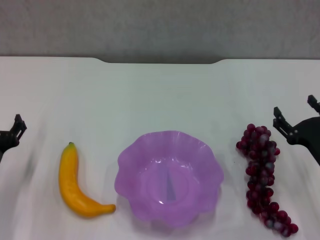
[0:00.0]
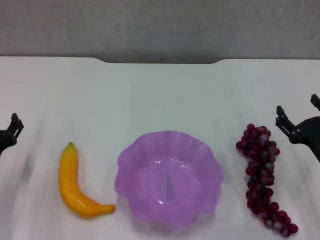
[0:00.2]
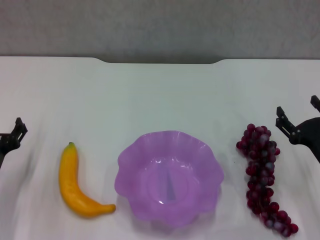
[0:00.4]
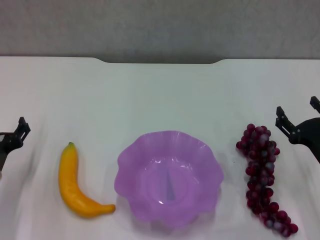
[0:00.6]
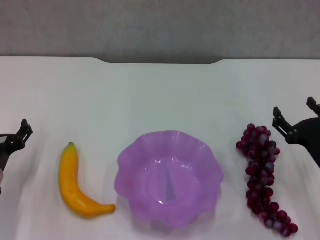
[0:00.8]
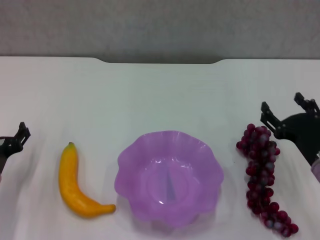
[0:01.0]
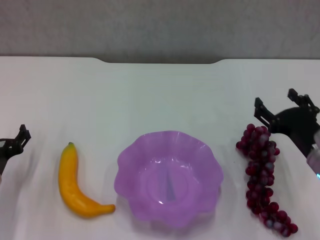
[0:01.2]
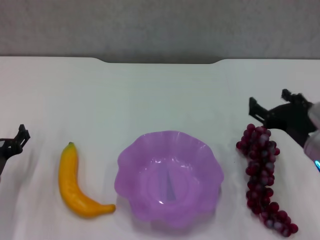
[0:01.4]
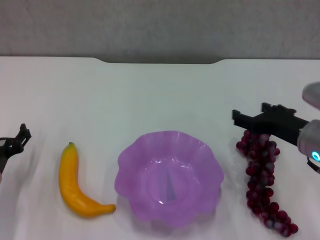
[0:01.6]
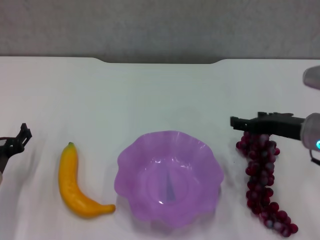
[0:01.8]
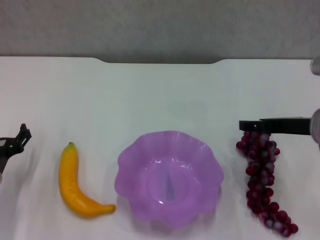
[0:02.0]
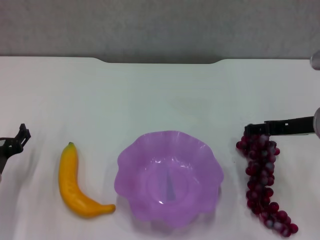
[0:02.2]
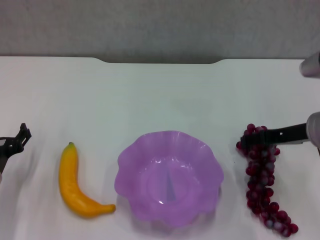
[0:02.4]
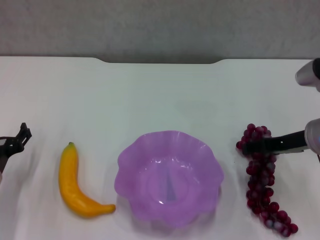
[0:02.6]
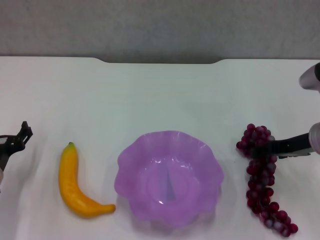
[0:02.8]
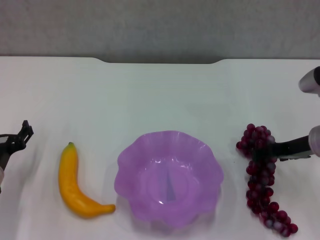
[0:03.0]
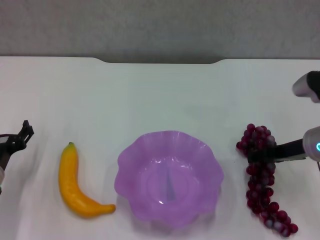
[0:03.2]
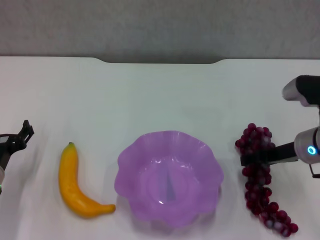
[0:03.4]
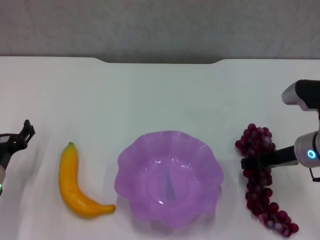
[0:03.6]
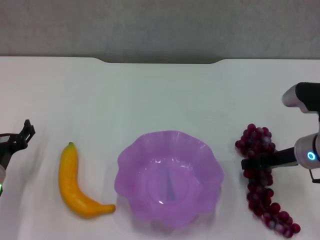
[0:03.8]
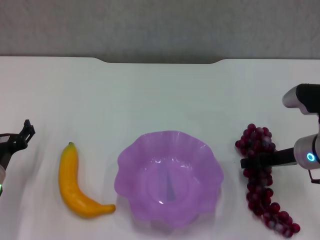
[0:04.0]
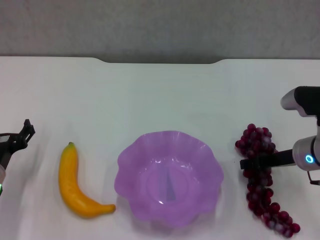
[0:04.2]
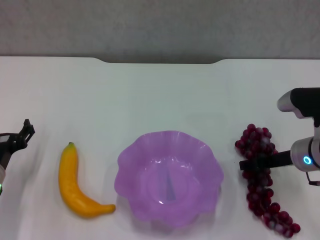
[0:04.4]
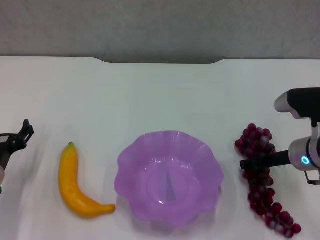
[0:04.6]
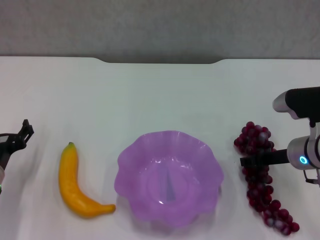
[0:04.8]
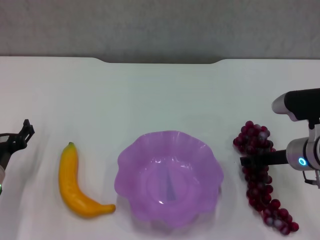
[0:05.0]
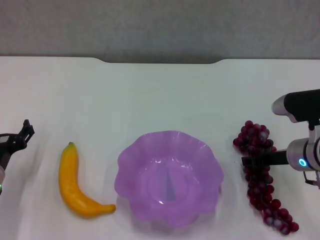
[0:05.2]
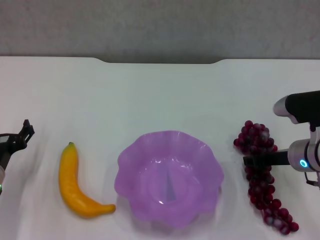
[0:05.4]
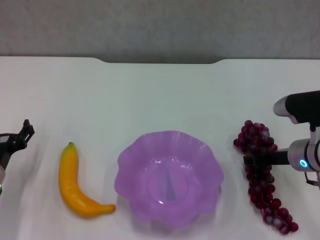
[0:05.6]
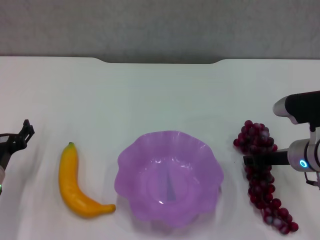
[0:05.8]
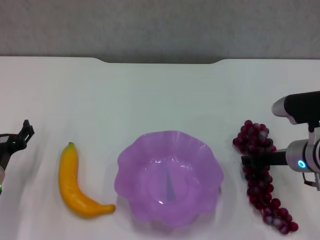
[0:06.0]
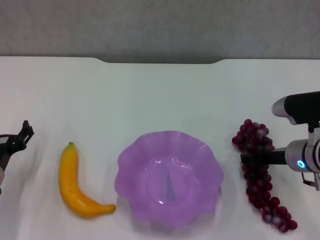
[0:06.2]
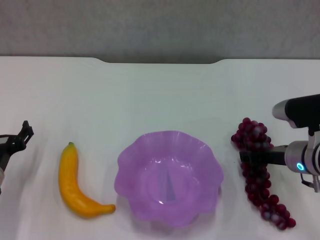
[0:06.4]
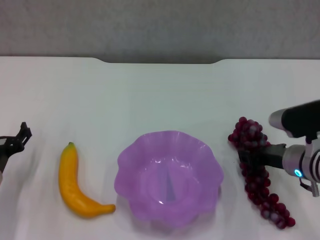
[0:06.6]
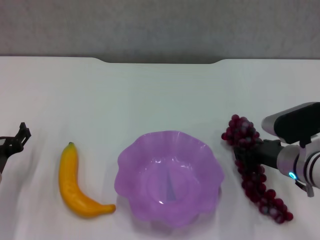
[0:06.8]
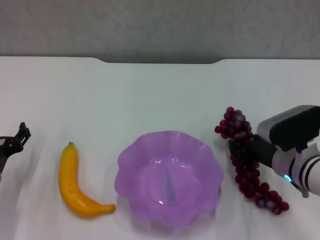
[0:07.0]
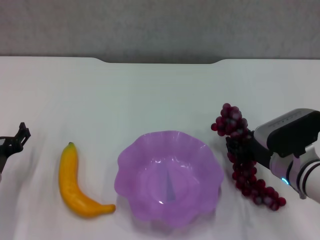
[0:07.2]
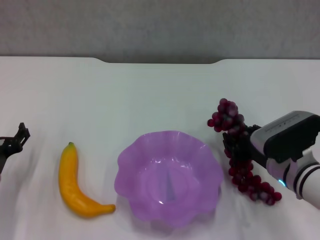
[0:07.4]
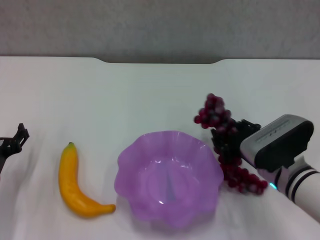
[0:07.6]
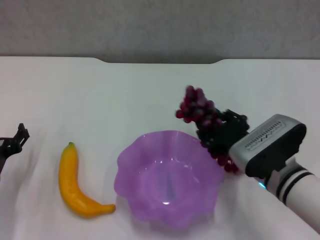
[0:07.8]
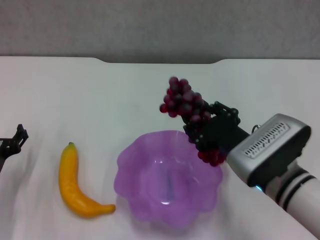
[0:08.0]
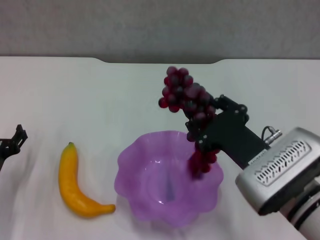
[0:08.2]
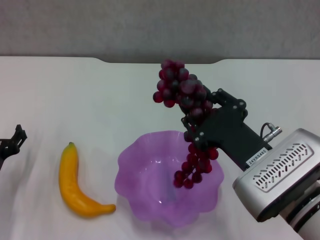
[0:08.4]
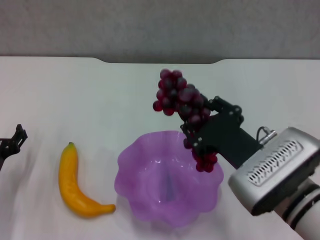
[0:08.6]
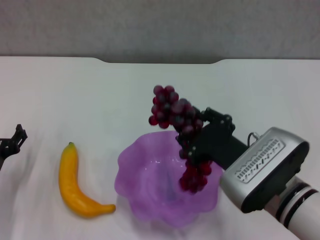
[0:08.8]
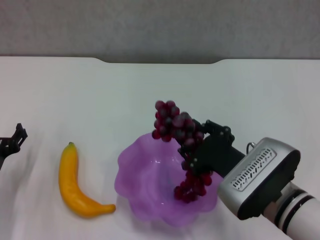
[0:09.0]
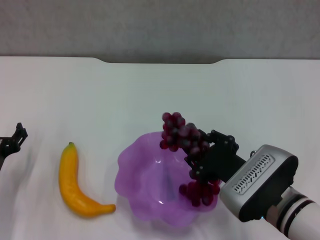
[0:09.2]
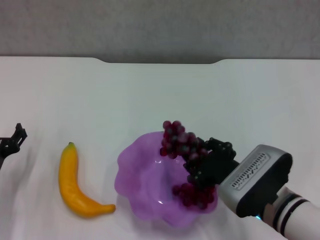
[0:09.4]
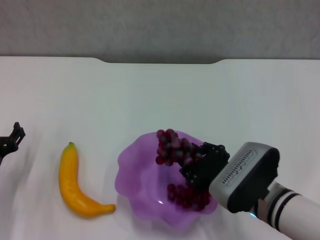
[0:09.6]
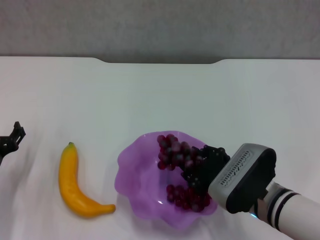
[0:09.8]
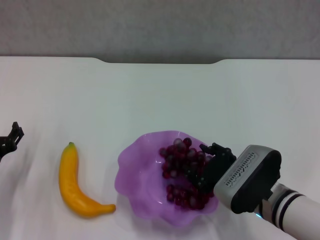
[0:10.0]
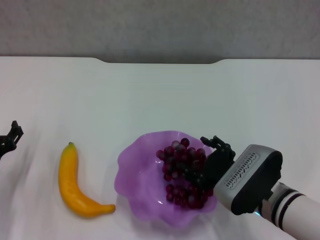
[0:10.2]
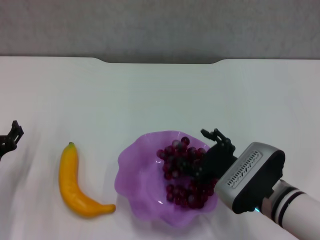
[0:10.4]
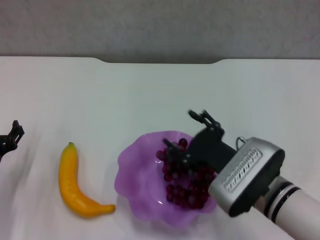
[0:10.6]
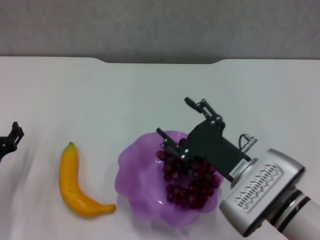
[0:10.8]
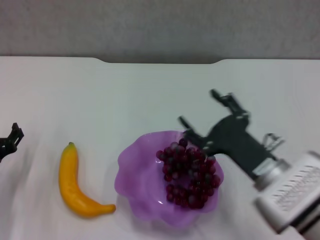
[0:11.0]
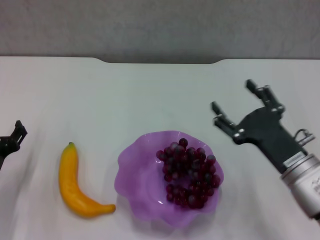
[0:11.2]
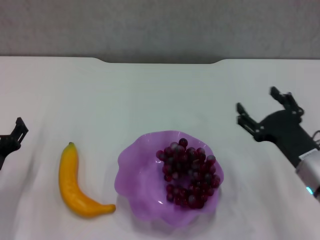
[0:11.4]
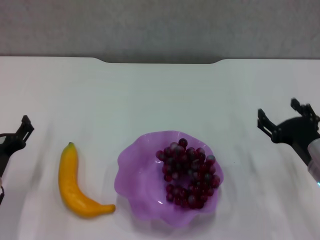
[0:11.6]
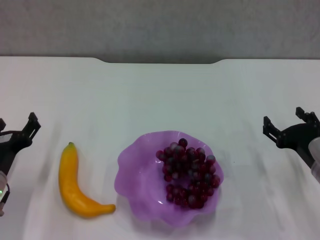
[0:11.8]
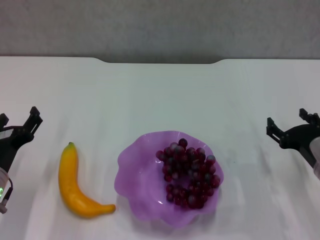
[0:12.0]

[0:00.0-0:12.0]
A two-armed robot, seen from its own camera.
Step, 0:00.0 to 0:04.4: Grasp the grape with right gripper.
Step, 0:04.8 to 0:10.6: Place the grape in the purple plate with right gripper.
0:00.0 to 0:01.6: The right gripper moves upward, some 10 cm.
0:01.6 to 0:03.0: The right gripper travels forward by about 5 cm.
0:03.0 to 0:04.4: There are only small adjustments of the grippers.
0:04.4 to 0:06.0: The right gripper closes up.
0:06.0 to 0:07.6: The right gripper moves to the left and backward, some 10 cm.
0:07.6 to 0:09.0: The right gripper shifts approximately 5 cm backward.
0:09.0 to 0:10.4: The right gripper opens its fingers.
0:10.4 to 0:12.0: The right gripper heads to the right, covering some 10 cm.

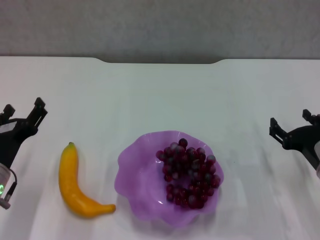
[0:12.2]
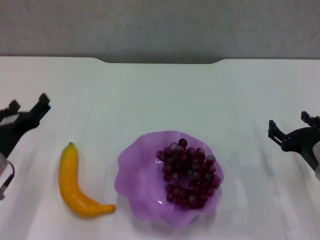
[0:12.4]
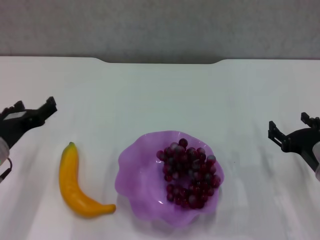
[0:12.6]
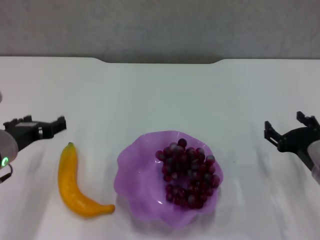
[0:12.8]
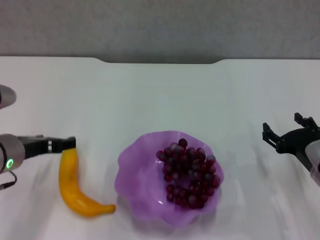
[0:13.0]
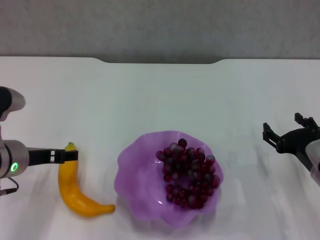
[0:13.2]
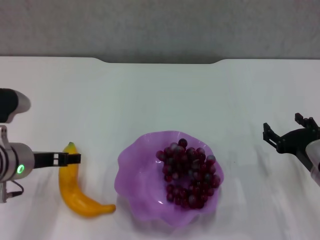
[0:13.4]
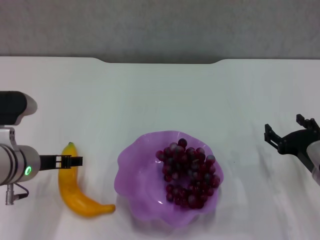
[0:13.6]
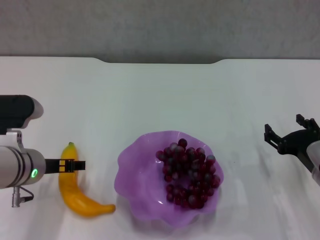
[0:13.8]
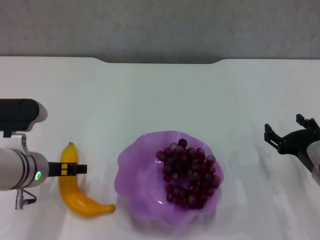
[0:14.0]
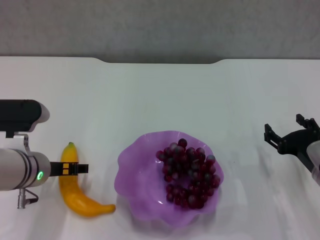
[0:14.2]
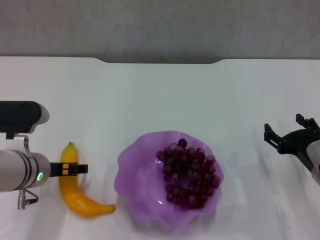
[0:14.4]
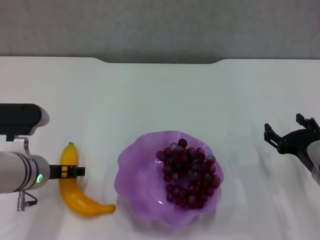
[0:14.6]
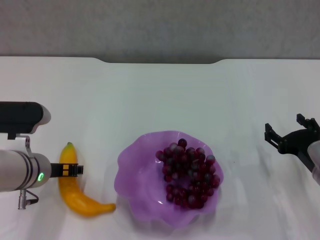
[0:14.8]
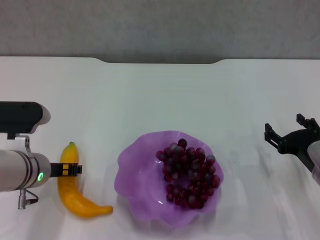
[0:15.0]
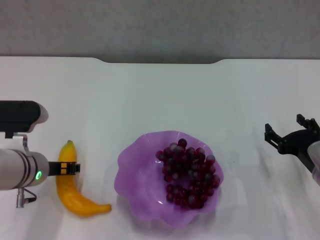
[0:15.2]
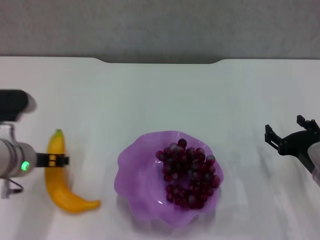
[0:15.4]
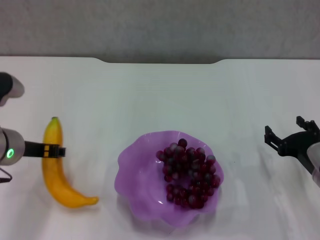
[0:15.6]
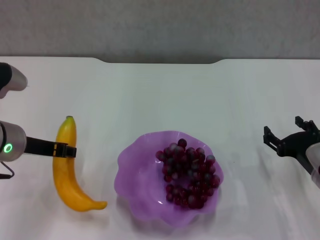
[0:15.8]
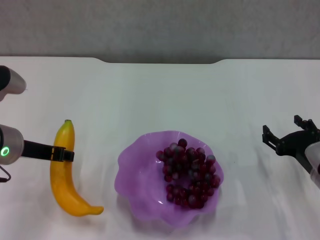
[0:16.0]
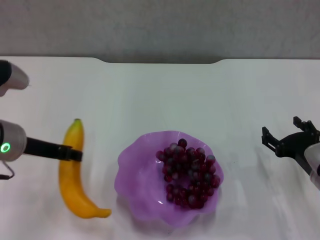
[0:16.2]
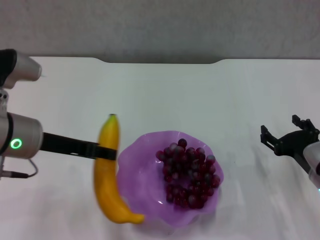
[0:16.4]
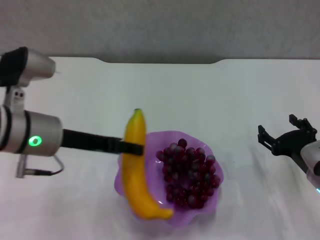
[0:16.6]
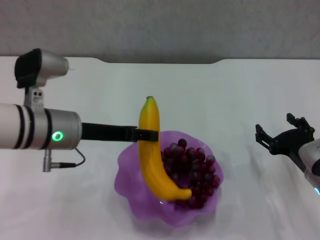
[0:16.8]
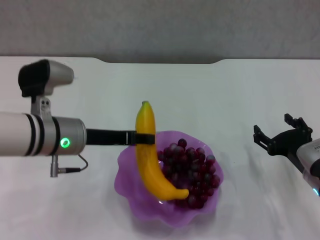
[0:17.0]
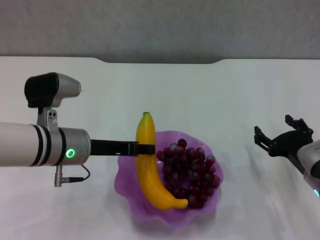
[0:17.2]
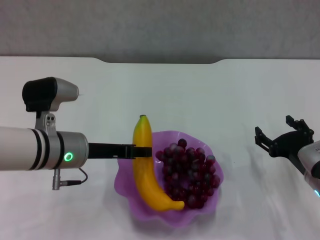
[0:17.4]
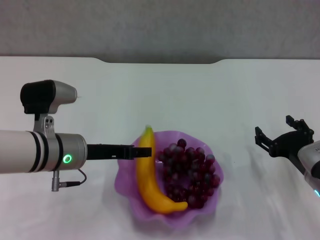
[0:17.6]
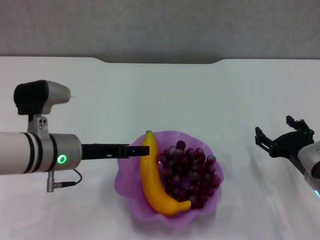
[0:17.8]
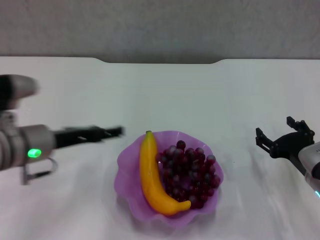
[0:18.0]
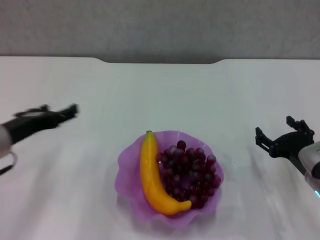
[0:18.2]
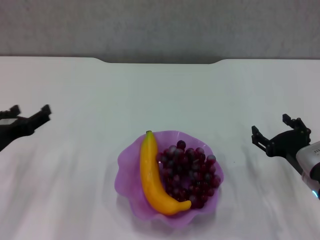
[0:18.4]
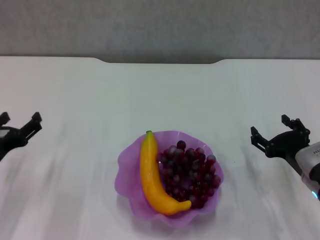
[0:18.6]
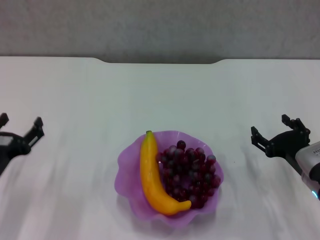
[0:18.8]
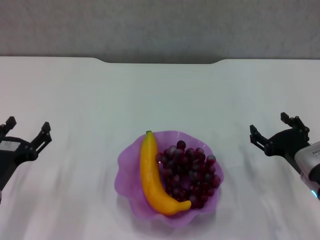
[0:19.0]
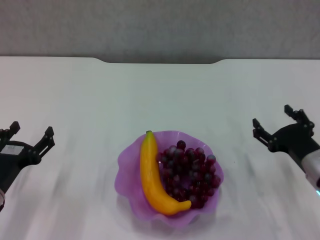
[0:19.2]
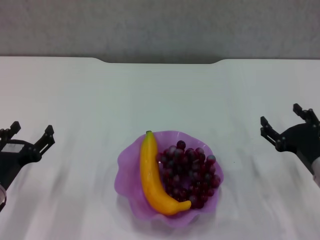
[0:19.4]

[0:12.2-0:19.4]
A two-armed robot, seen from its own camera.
Step, 0:12.2 to 0:15.0: Grasp the banana with left gripper.
Step, 0:15.2 to 0:17.8: Place the banana in the purple plate with left gripper.
0:12.2 to 0:13.6: The left gripper heads upward, covering roughly 5 cm.
0:13.6 to 0:15.0: The left gripper closes up.
0:15.0 to 0:16.6: The left gripper heads upward, covering roughly 10 cm, and closes up.
0:16.6 to 0:18.0: The left gripper goes roughly 5 cm downward, and opens its fingers.
0:18.0 to 0:19.4: The left gripper goes about 15 cm downward, backward and to the left.
